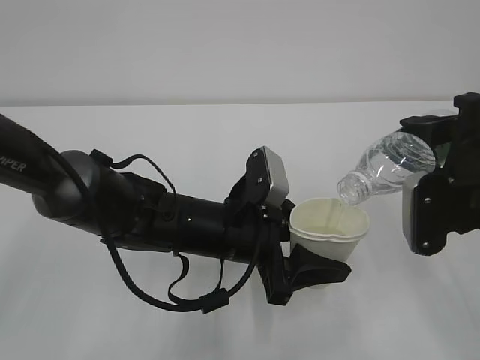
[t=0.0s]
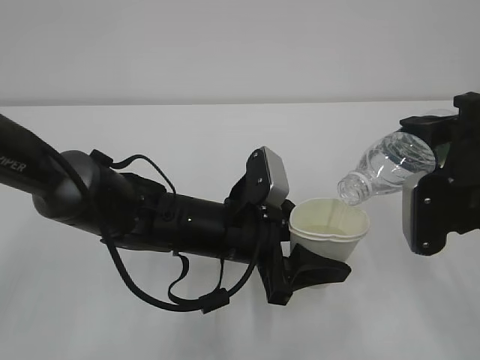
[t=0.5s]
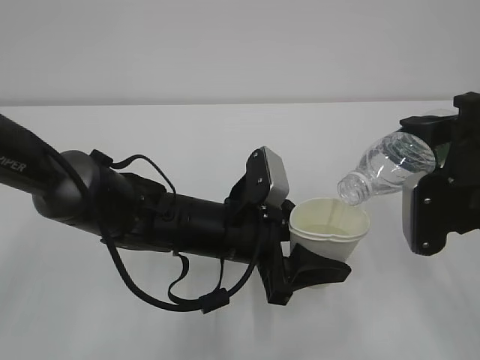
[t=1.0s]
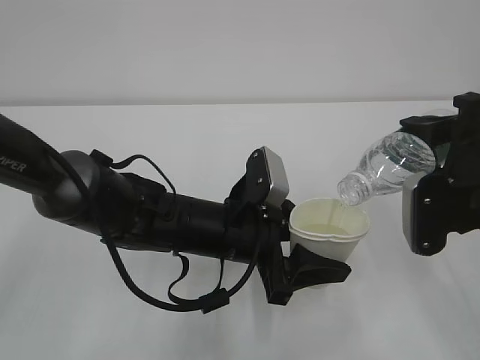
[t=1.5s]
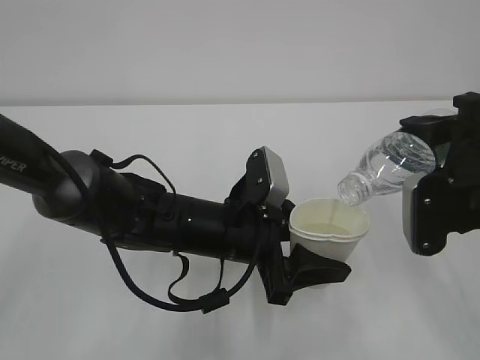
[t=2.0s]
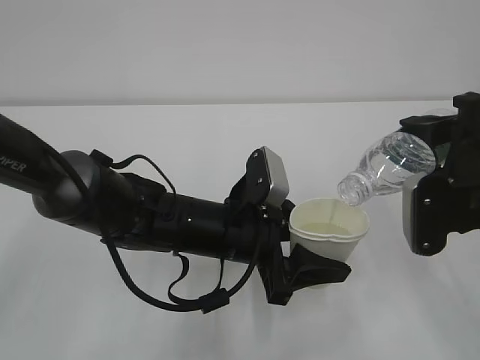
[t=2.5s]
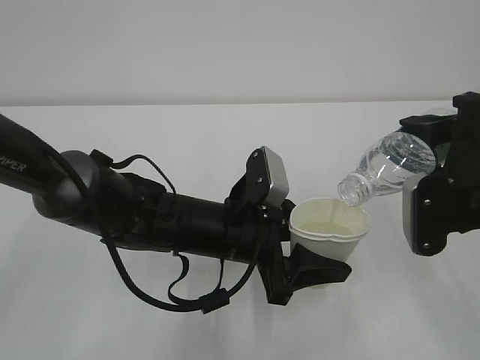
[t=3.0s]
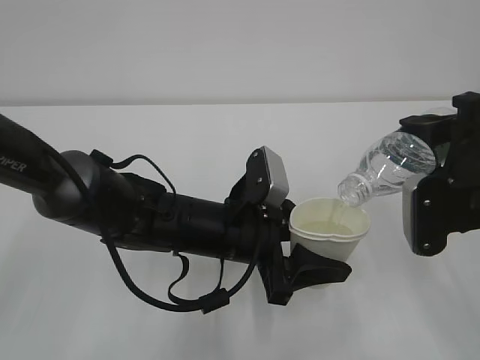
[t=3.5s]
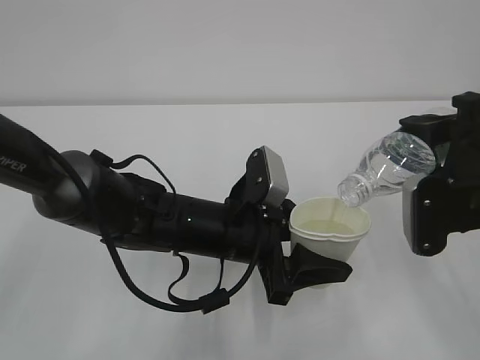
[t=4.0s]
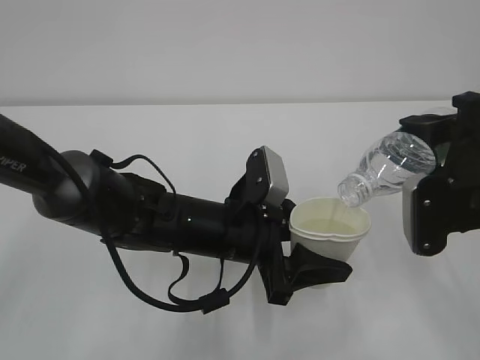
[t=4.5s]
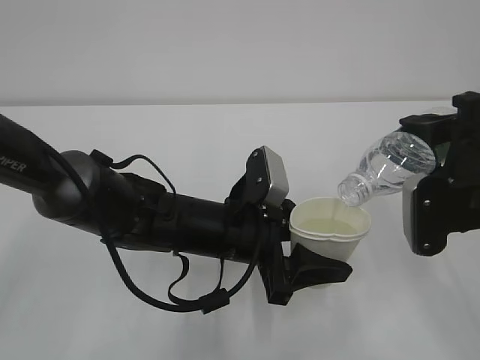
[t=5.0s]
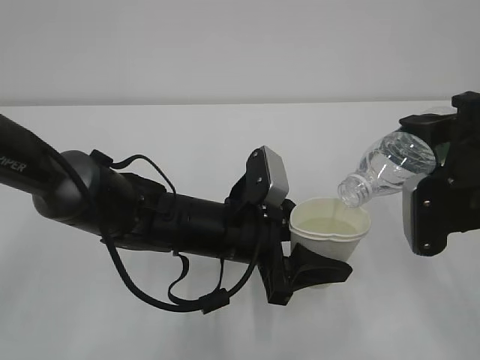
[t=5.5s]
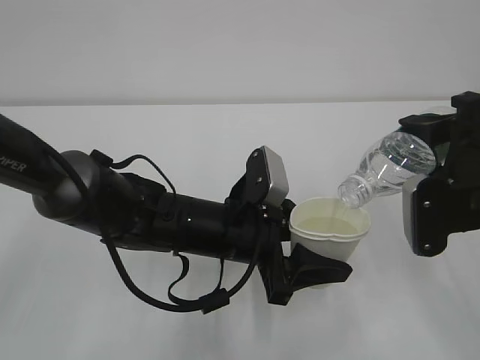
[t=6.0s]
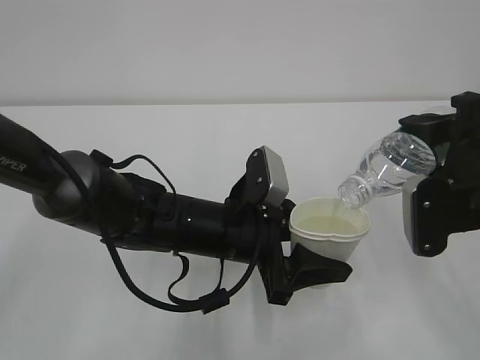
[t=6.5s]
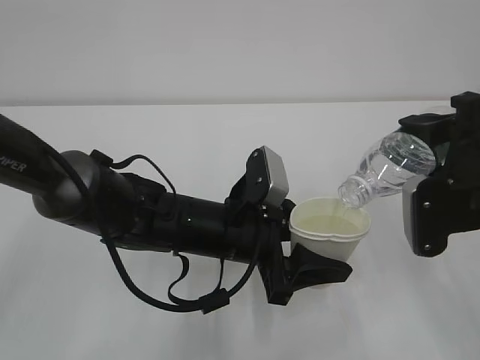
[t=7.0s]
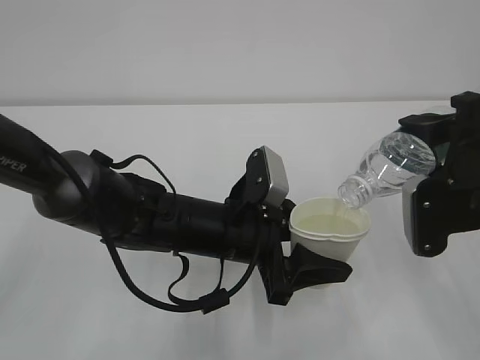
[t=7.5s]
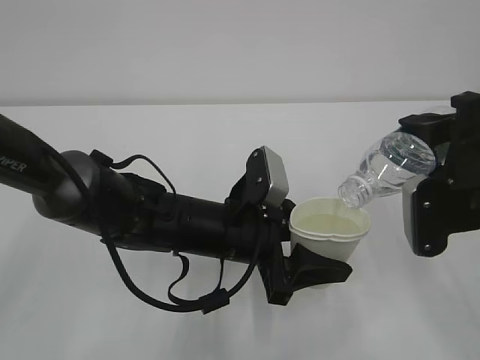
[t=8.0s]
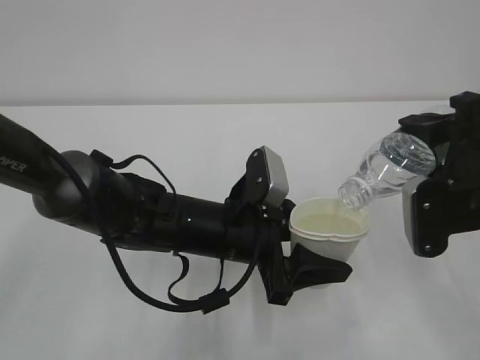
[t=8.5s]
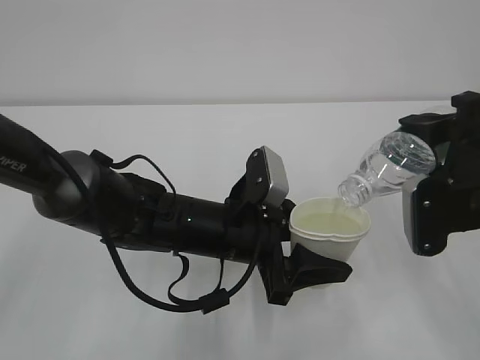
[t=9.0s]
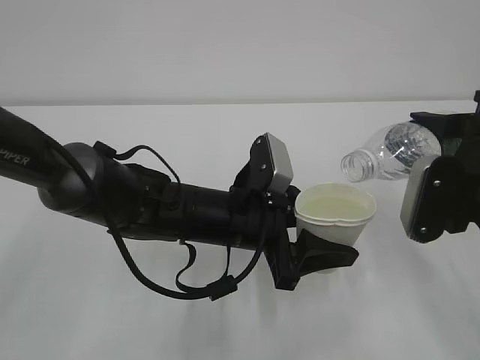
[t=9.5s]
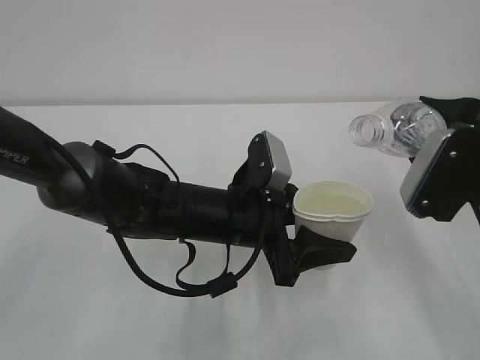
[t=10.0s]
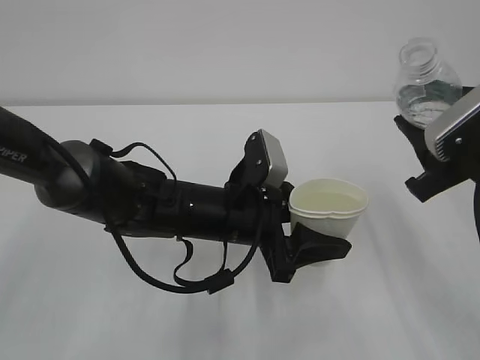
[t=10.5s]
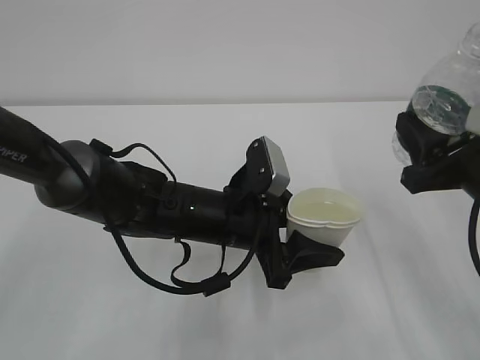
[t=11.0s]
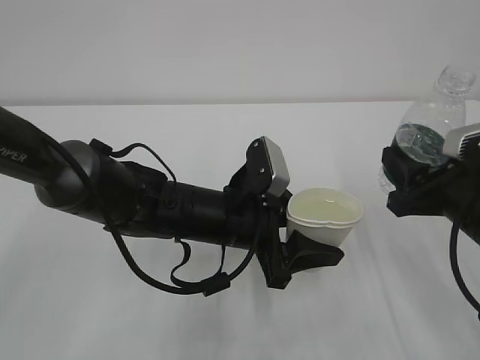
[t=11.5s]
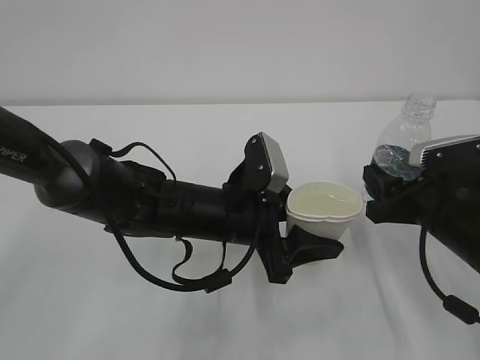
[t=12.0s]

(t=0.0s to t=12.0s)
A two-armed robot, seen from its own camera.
t=0.0s - t=8.0s: Neither gripper changes place.
t=10.0s - t=12.0s: The right gripper heads downward, covering approximately 10 cm.

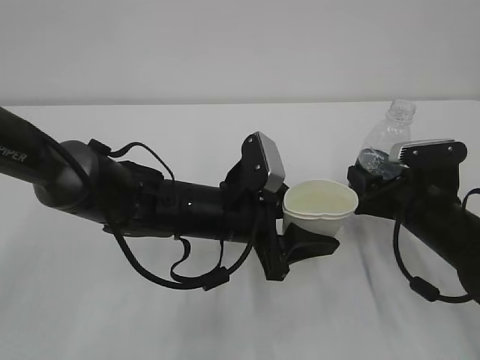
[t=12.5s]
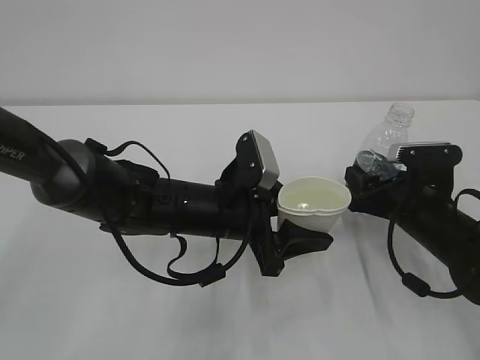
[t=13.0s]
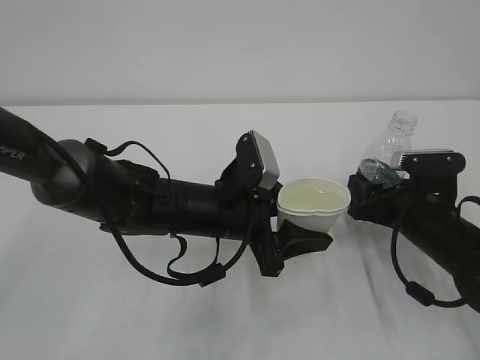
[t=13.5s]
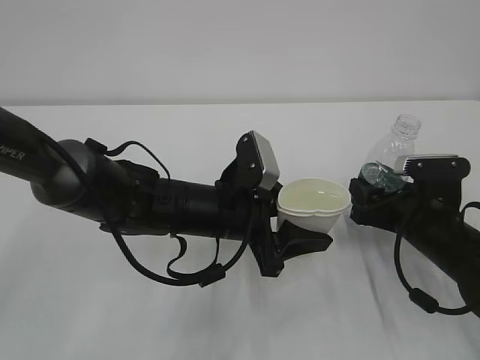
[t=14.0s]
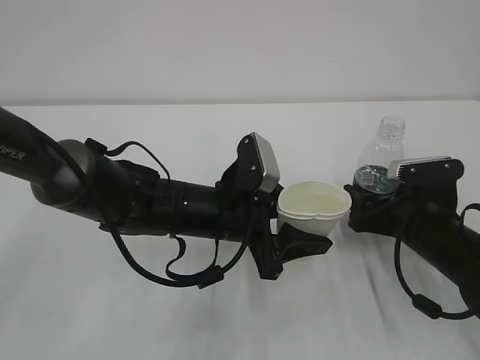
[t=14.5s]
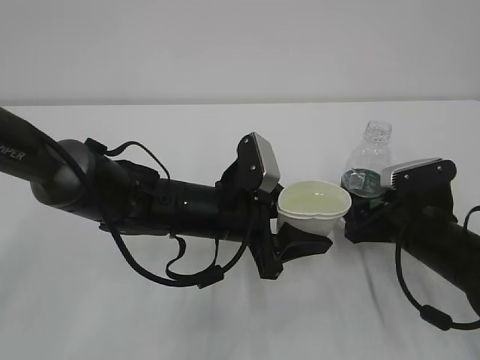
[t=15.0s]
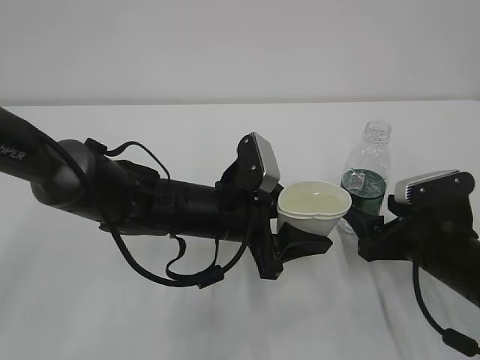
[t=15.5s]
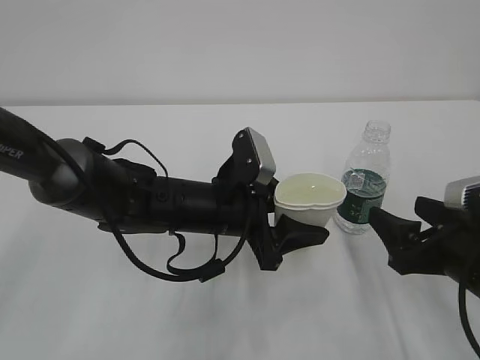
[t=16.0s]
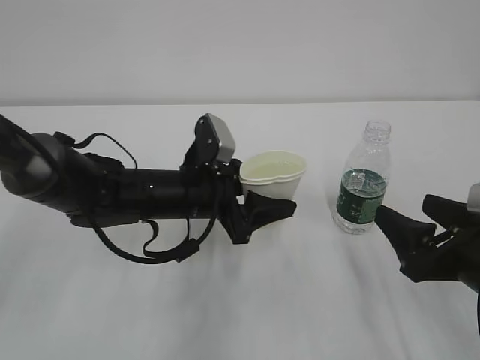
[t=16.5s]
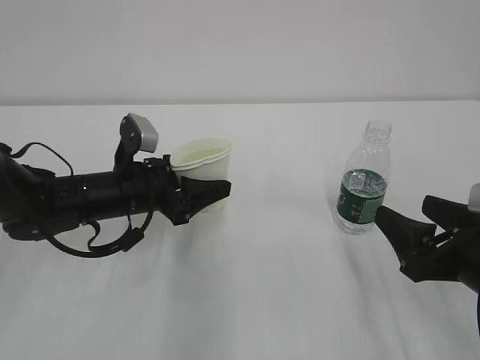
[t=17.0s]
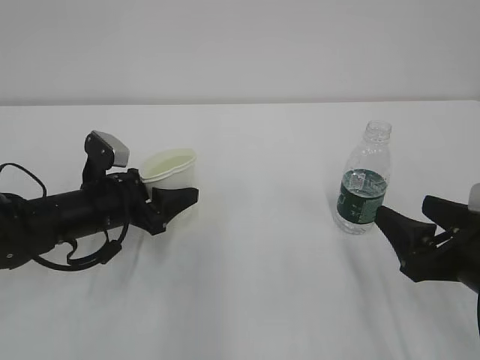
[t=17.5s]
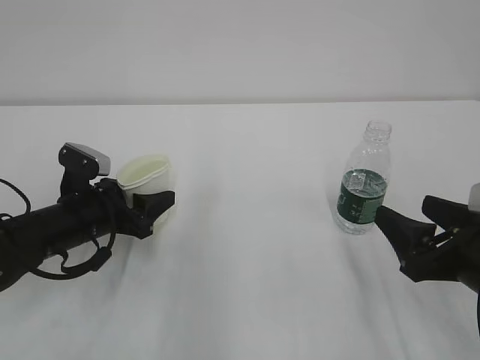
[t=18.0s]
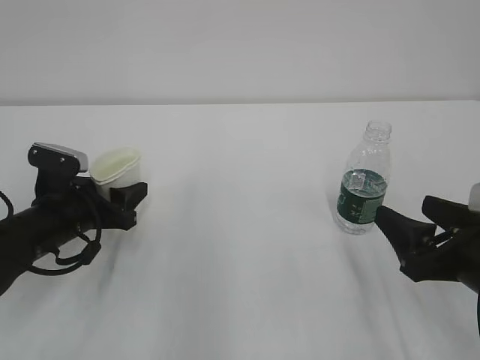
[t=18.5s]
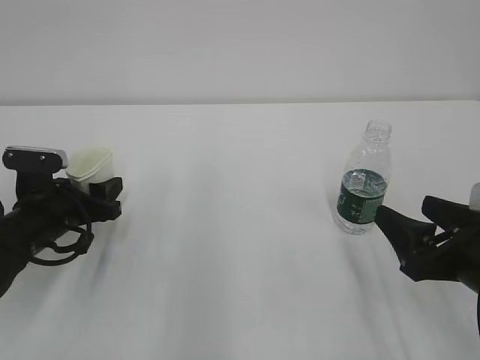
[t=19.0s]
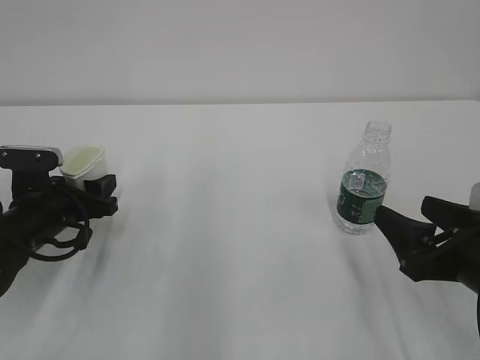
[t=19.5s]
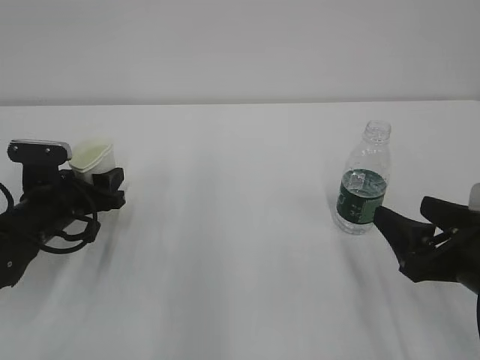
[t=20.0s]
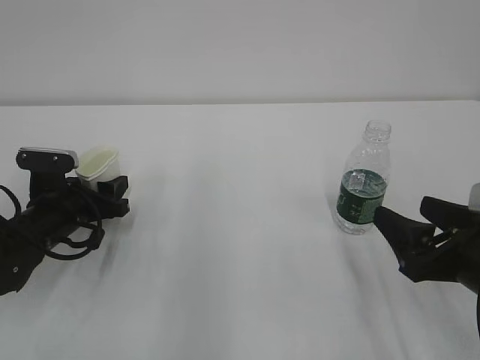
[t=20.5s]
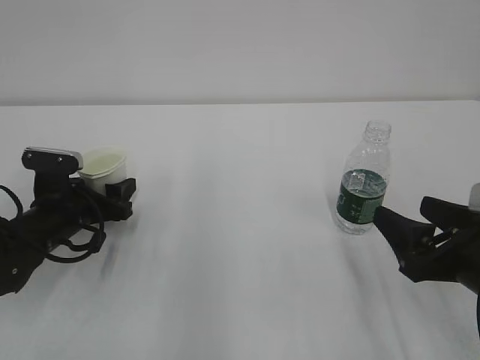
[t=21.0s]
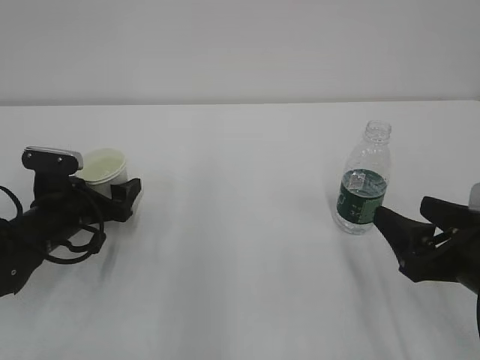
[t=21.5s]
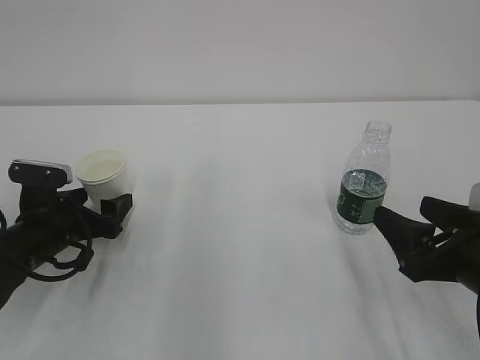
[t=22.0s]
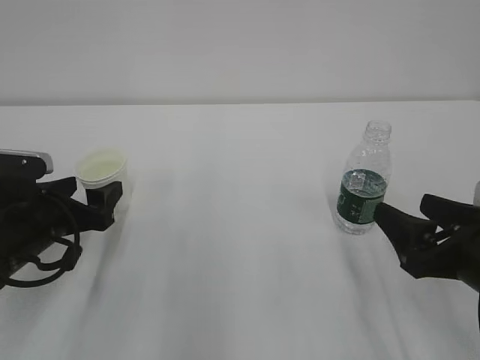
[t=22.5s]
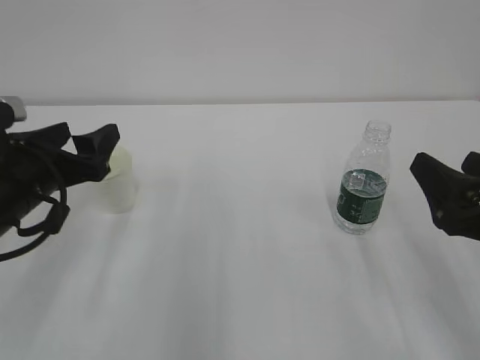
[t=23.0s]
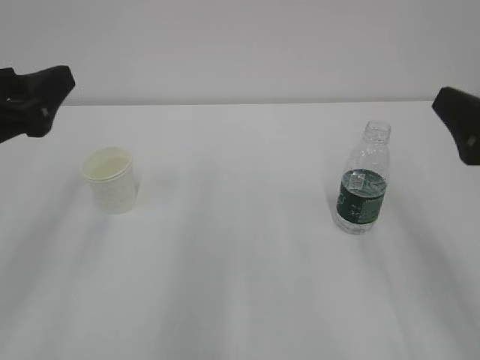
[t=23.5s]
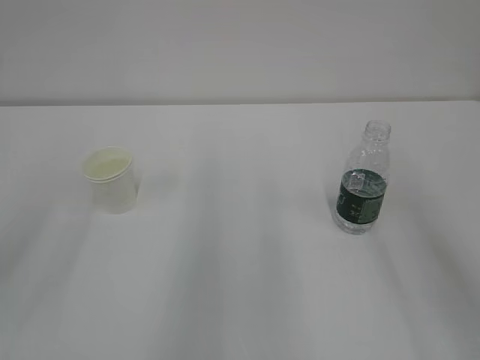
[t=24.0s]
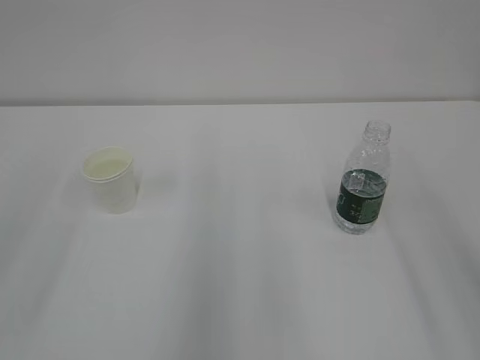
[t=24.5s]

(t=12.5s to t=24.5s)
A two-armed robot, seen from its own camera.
t=12.5s - t=14.5s: The right gripper opens.
t=14.5s - t=16.5s: The right gripper shifts approximately 10 cm backward and upward.
t=16.5s - t=18.5s: The left gripper travels to the left by some 15 cm.
t=18.5s - t=20.5s: The grippers stay close to where they were, moving slightly.
t=20.5s - t=22.5s: The left gripper goes about 5 cm backward, and opens up.
t=22.5s - t=24.5s: Both grippers travel together upward and backward, roughly 30 cm.
